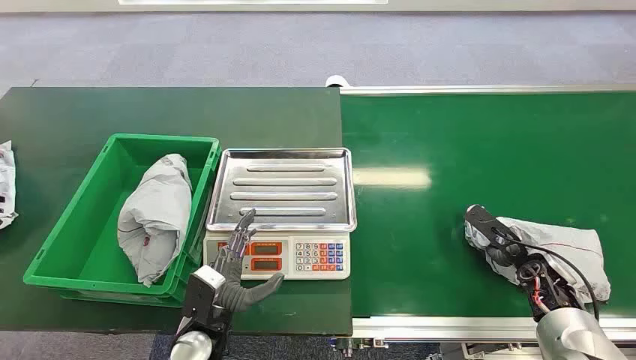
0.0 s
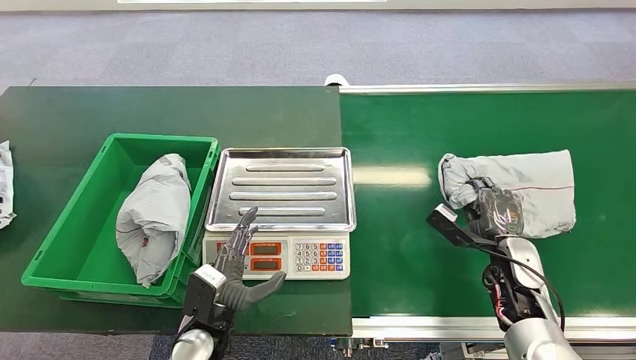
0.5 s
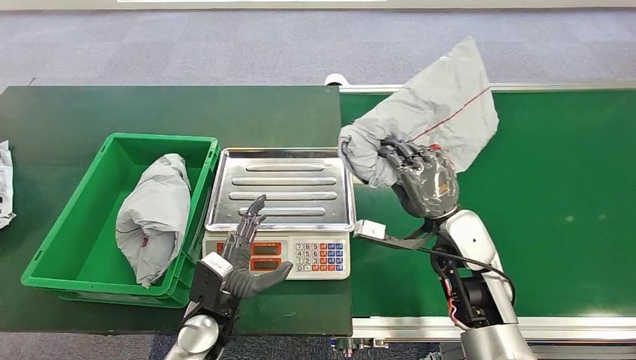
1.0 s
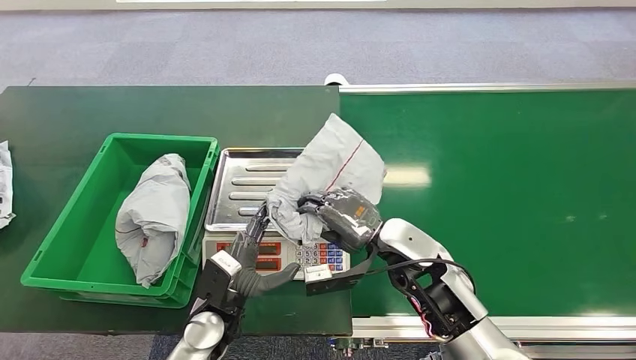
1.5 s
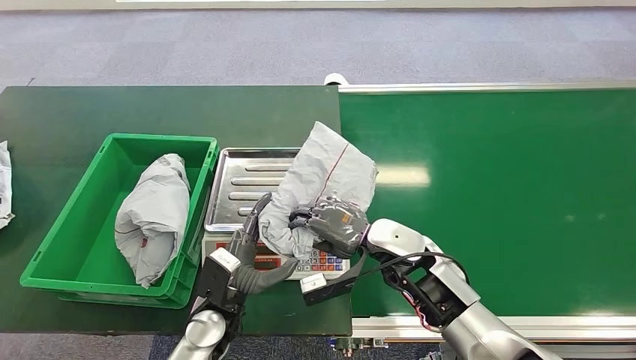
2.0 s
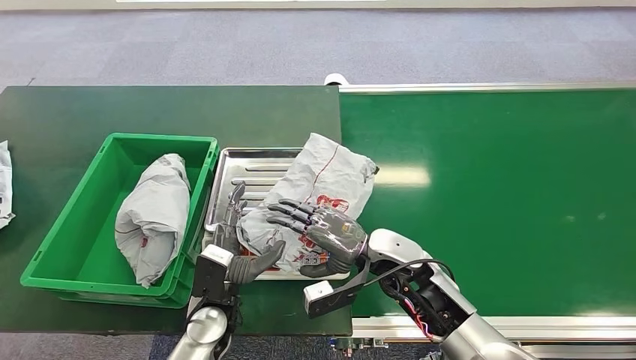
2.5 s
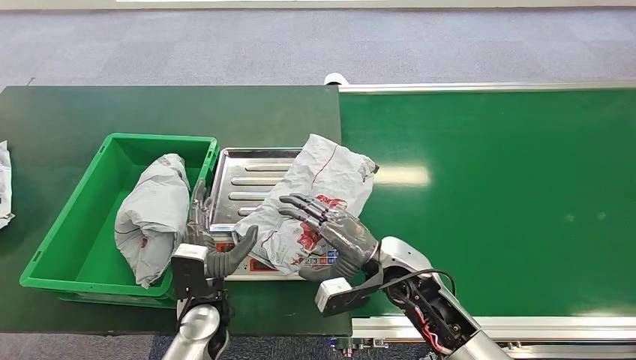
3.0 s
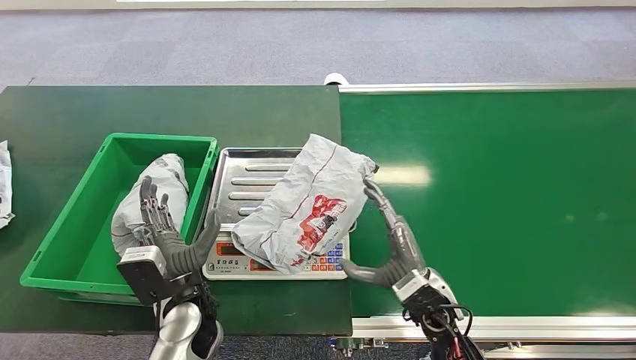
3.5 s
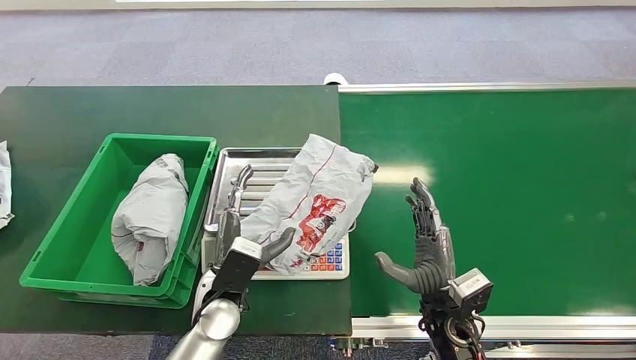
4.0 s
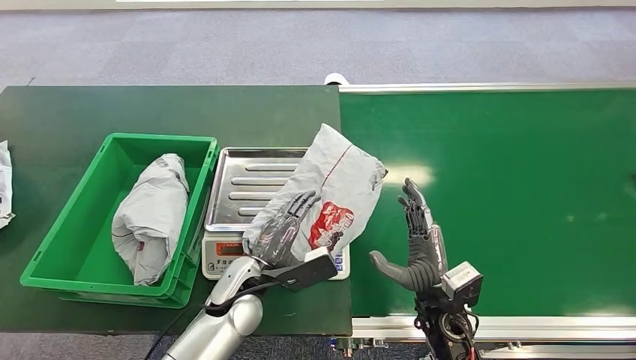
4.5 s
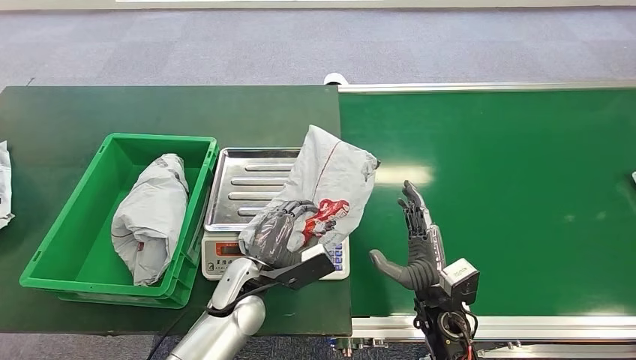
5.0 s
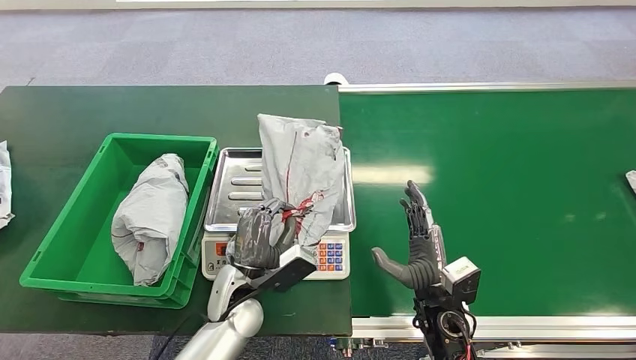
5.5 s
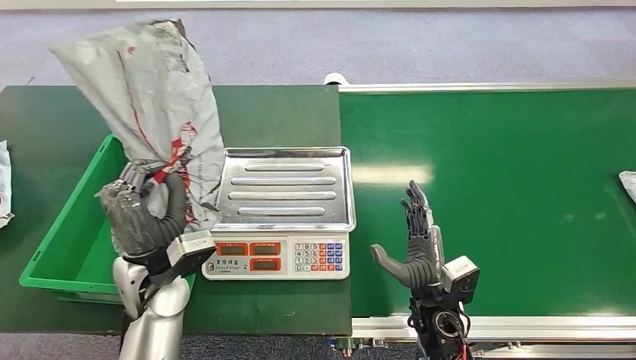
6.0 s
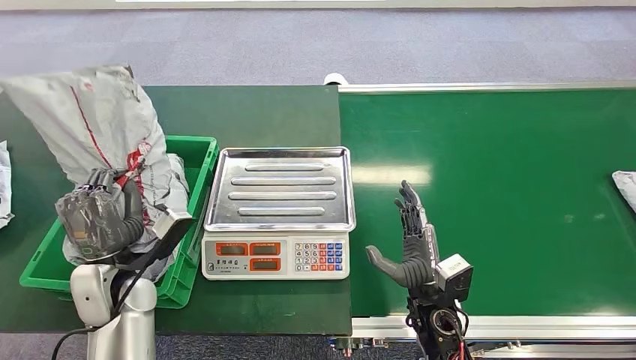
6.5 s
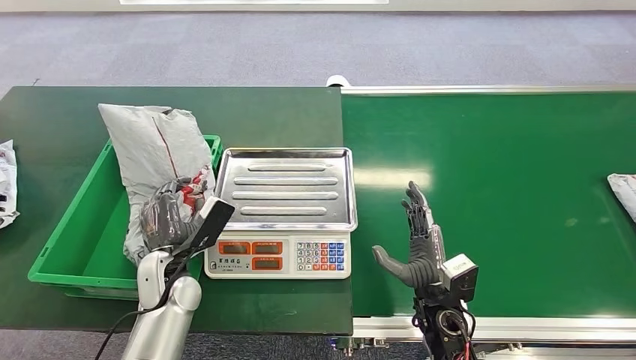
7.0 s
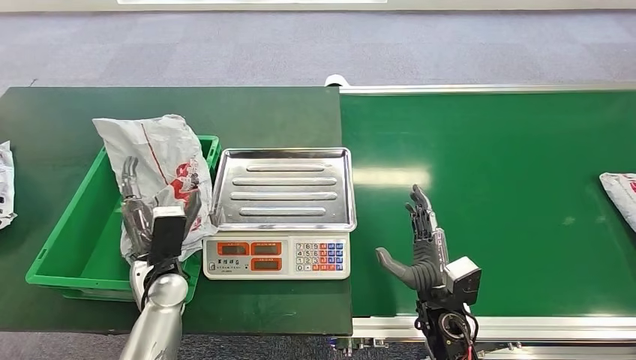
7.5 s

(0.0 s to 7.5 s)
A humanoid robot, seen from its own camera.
Step, 0.0 s - 0.5 s: Pick up the package from the conveyor belt.
Step, 1.5 s - 2.5 s: Place the package onto the inbound machine.
Step, 5.5 s - 6.0 s: Pick up the package from the inbound machine.
Step, 6.5 s - 7.5 s: Place the package into the parcel locker.
2.0 s - 4.0 s: The right hand travels backward, to the right and downward by about 15 cm.

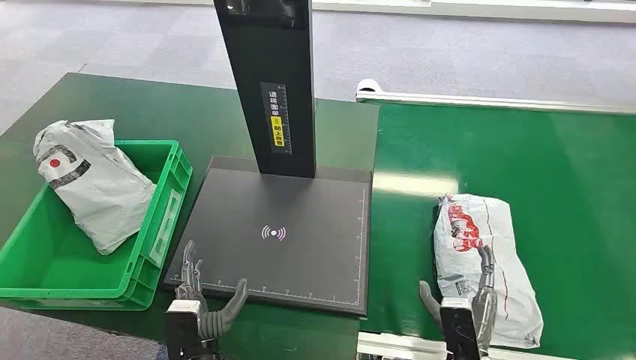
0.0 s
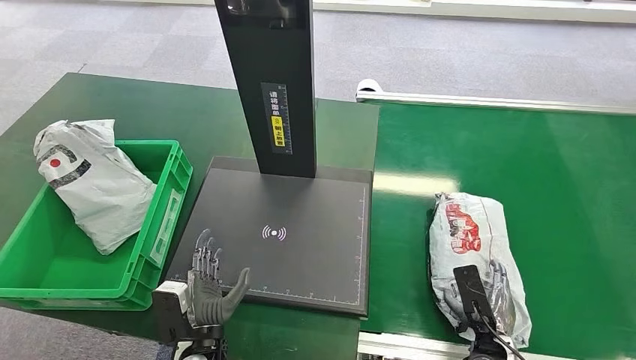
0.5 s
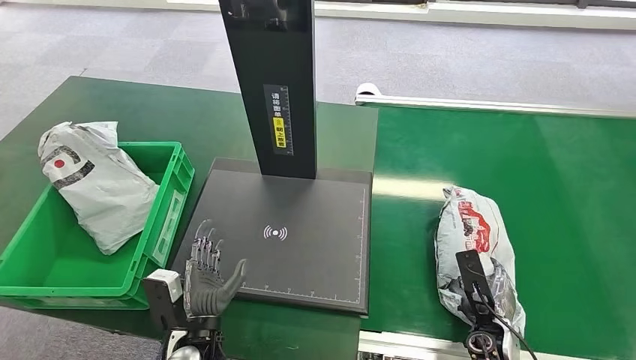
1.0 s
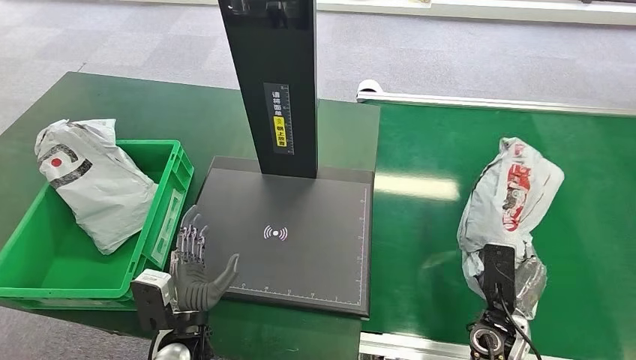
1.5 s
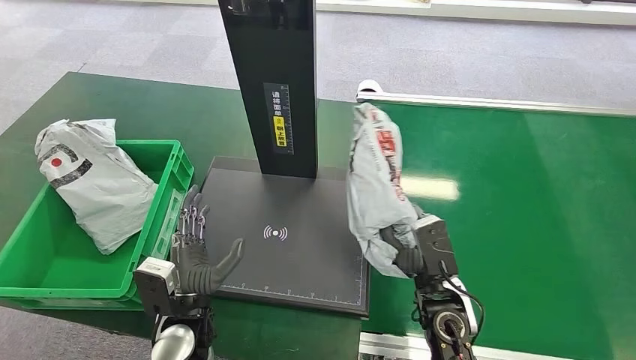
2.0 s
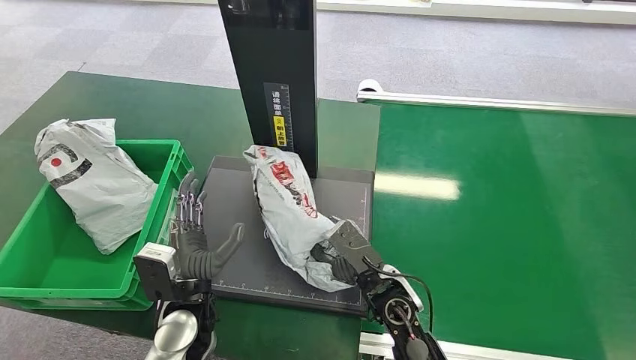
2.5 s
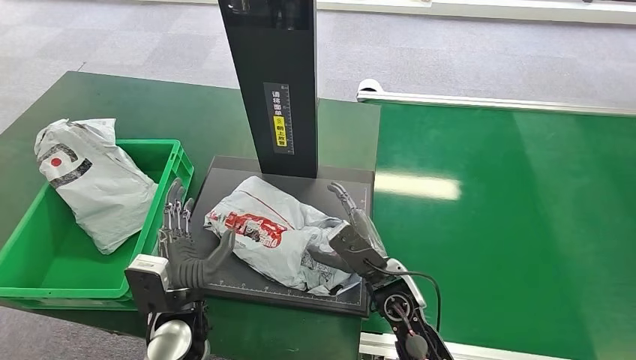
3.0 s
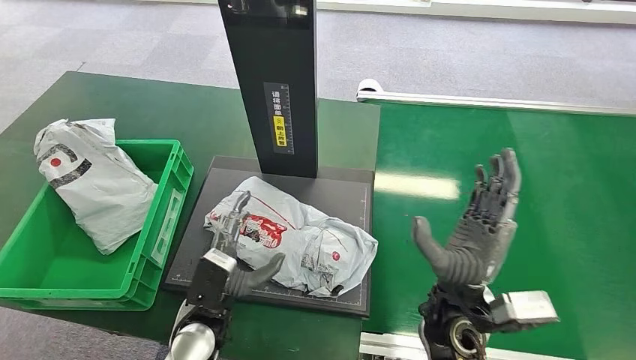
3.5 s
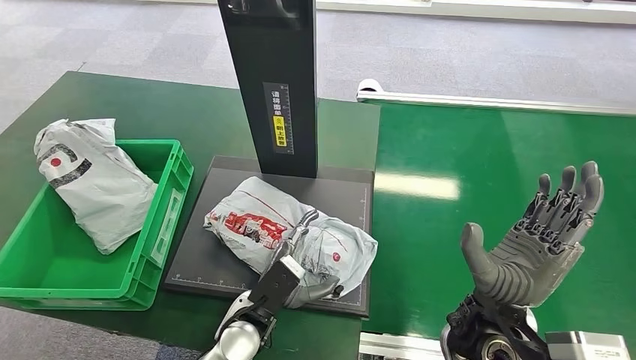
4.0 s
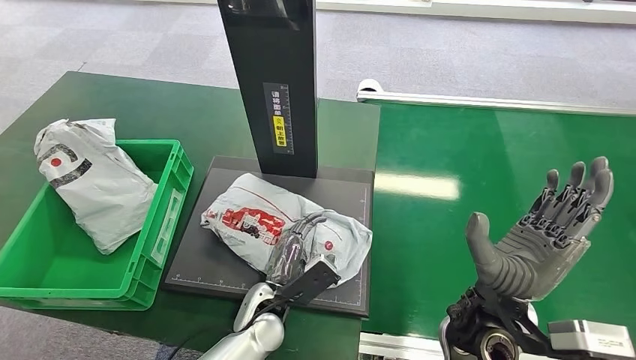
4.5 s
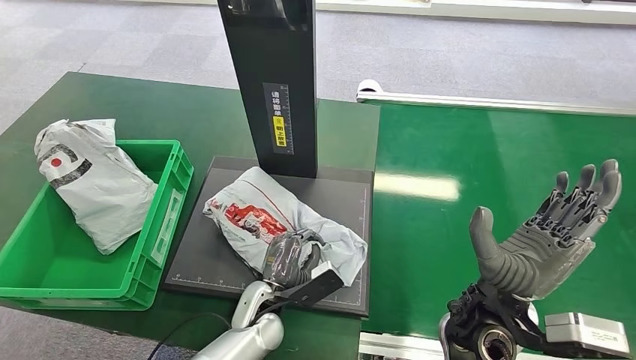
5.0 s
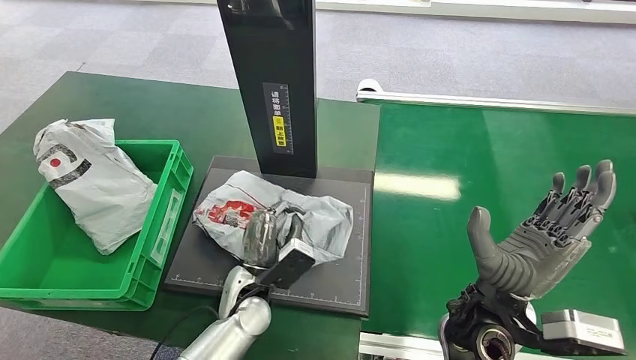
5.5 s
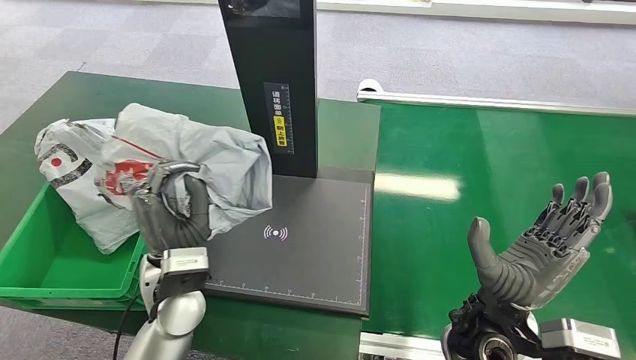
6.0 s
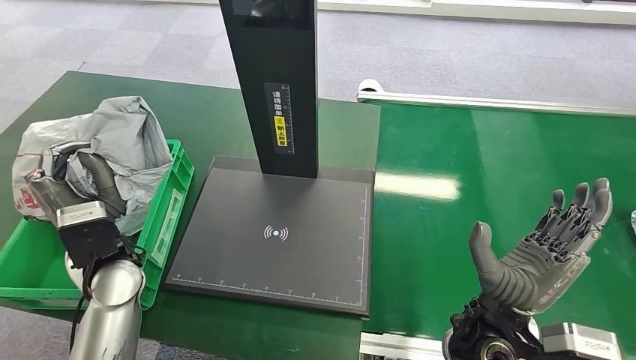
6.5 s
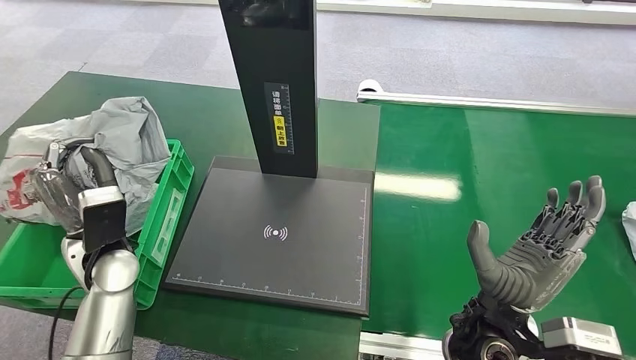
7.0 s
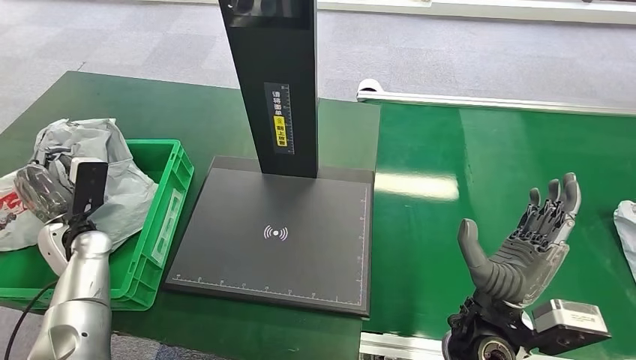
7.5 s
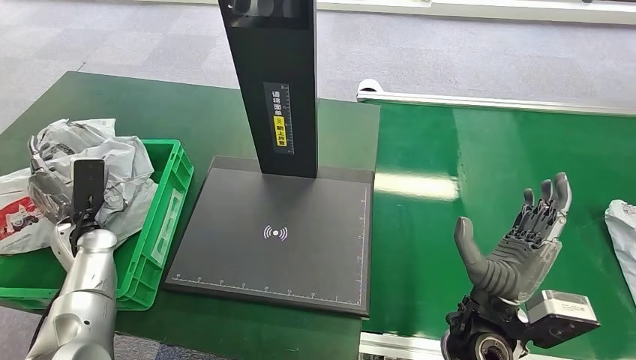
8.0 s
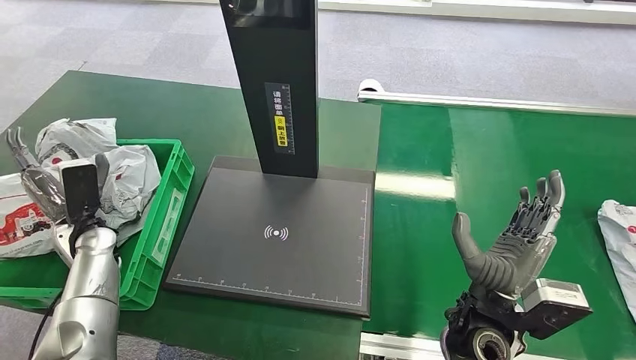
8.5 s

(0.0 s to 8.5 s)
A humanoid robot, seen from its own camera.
Step, 0.0 s - 1.5 s: Pick up the package from the conveyor belt.
Step, 2.0 s - 3.5 s: Place the package onto the inbound machine.
Step, 4.0 s - 6.0 s: Pick up the package from the inbound machine.
Step, 6.5 s - 8.5 s: Place the package into the parcel locker.
